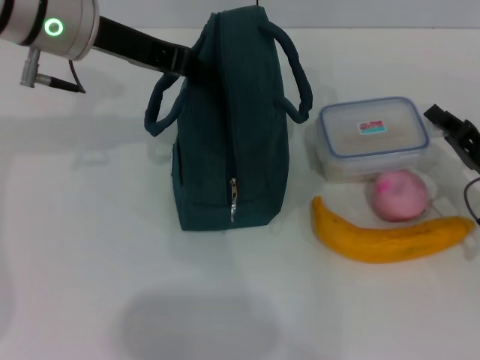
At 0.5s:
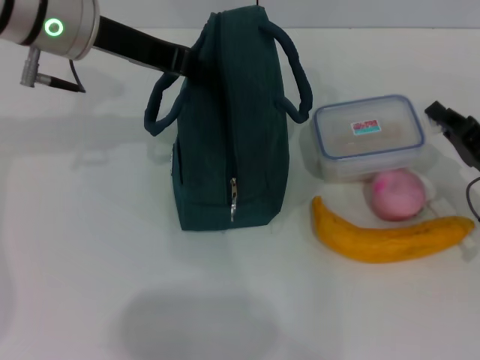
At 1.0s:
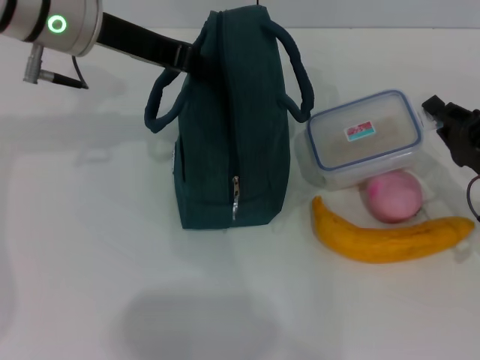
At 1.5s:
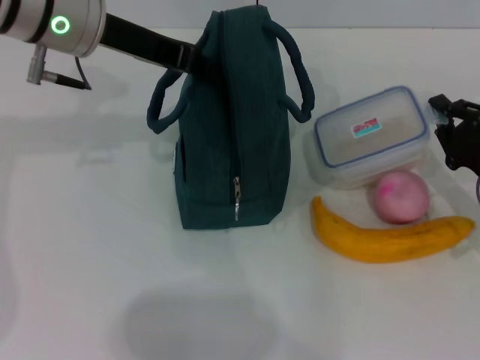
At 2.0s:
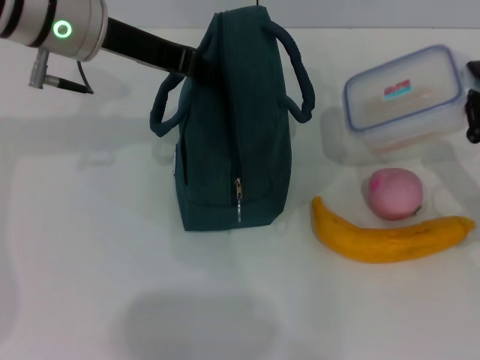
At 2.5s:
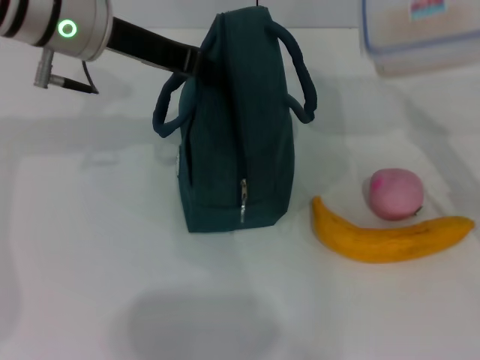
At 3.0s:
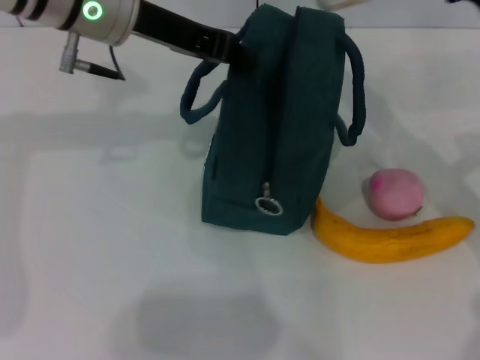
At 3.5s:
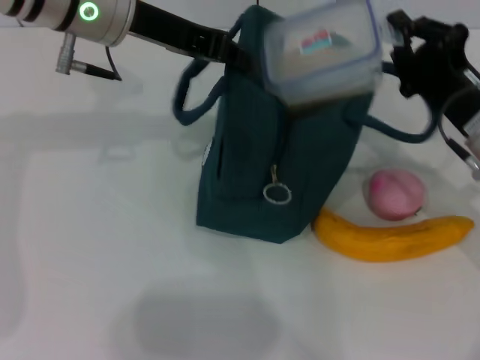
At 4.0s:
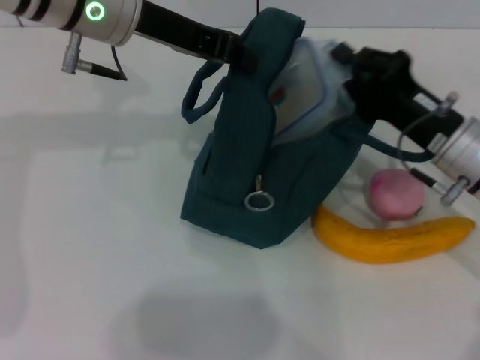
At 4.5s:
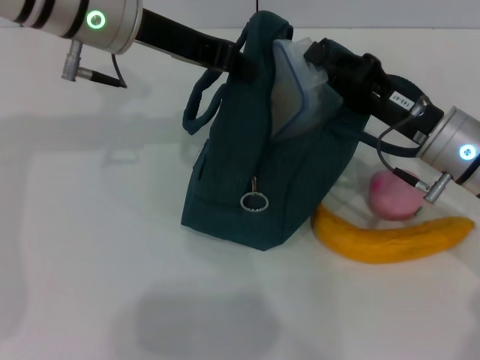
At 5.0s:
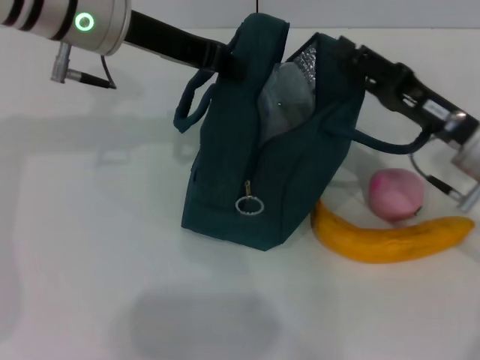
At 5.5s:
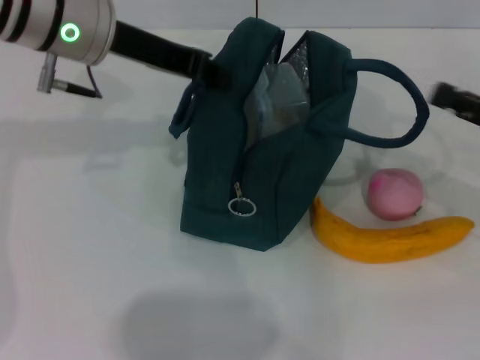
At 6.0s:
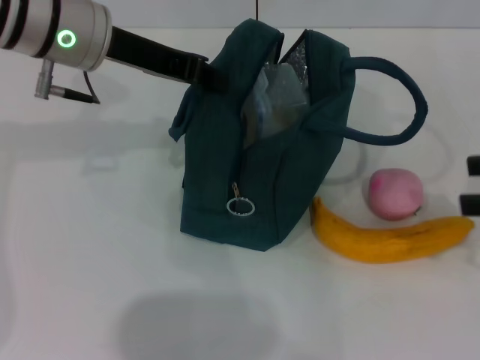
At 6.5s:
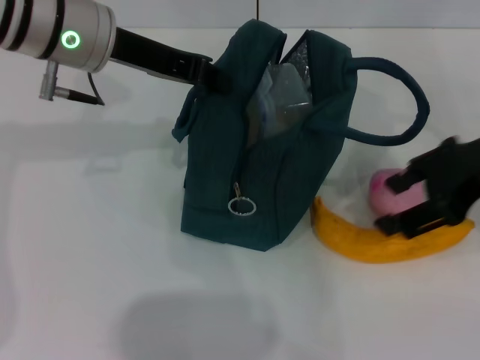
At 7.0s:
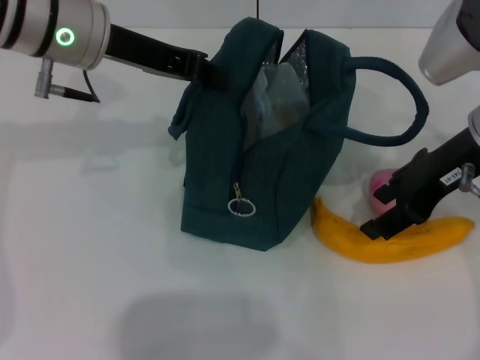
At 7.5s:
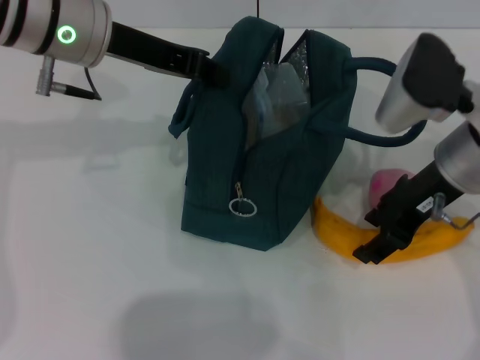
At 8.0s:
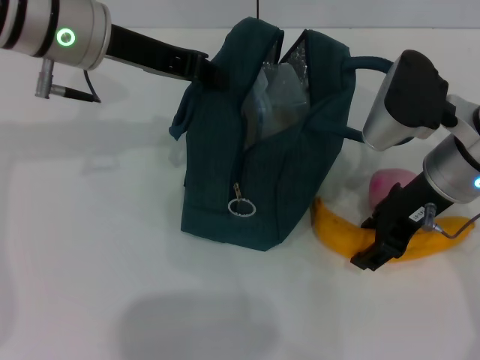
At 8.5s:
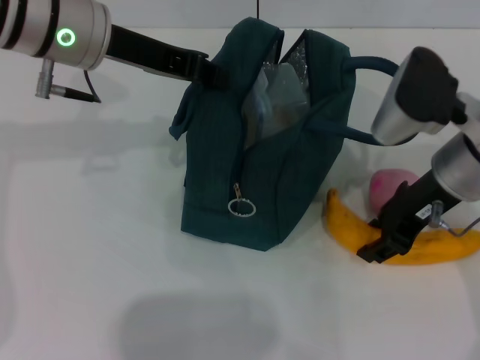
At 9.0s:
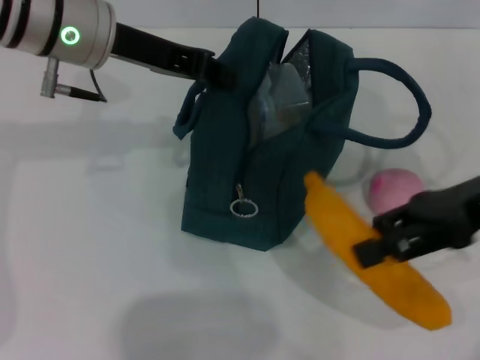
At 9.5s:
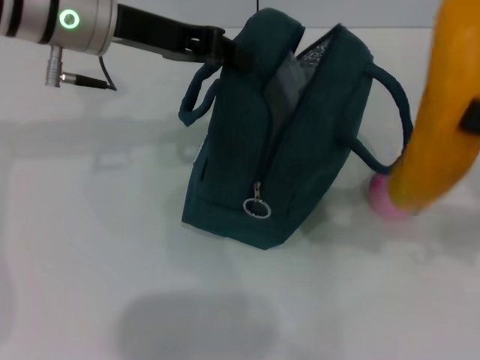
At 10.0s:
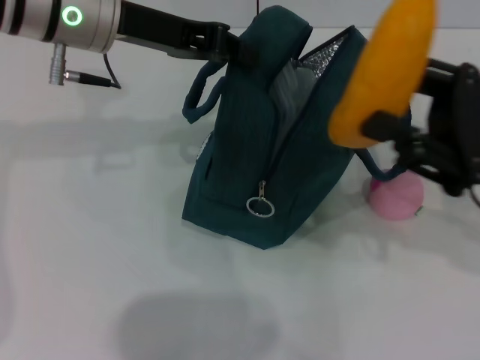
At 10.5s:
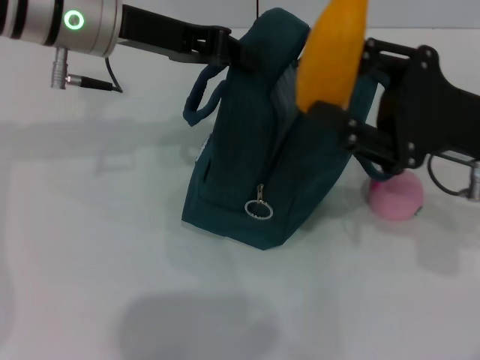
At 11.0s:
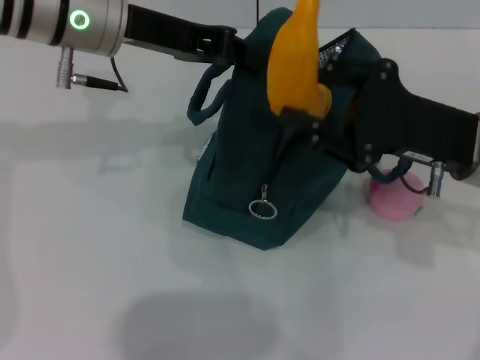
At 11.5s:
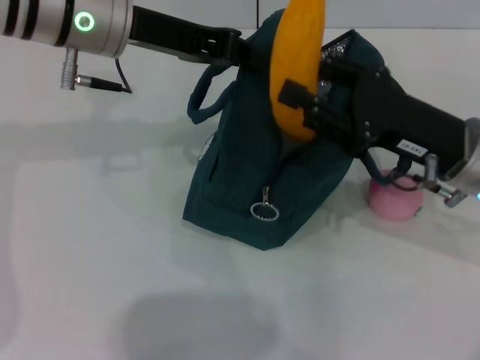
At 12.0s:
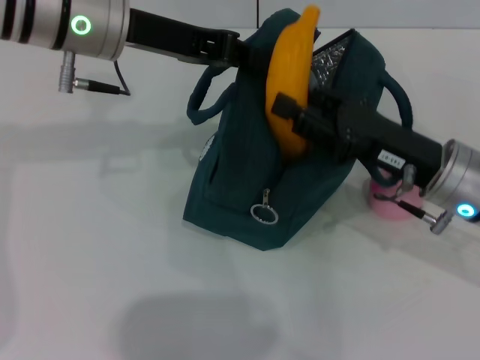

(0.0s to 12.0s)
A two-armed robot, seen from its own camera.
Step, 2.0s - 4.5s: Place the lunch box into the lunch bag with your right hand.
Step, 5.0s - 8.0s: Take the banana with your right hand.
2.0s - 4.0s: The right gripper heads to the left, covering approximately 10 cm, and reaches about 10 cm upward, then returns.
4.0s - 6.0s: The right gripper goes roughly 20 cm to the right, upward and backward, and opens its fingers.
6.0s - 8.0s: The right gripper moves to the left and forward, approximately 20 cm.
8.0s - 10.0s: The right gripper heads to the right and backward, covering some 10 cm.
10.0s - 12.0s: The right gripper heads downward and to the left, covering some 10 cm.

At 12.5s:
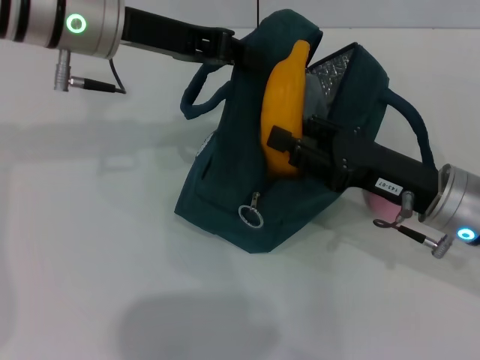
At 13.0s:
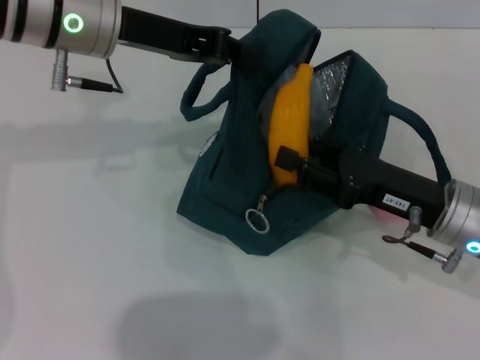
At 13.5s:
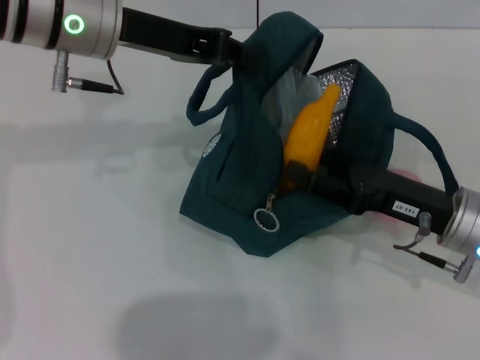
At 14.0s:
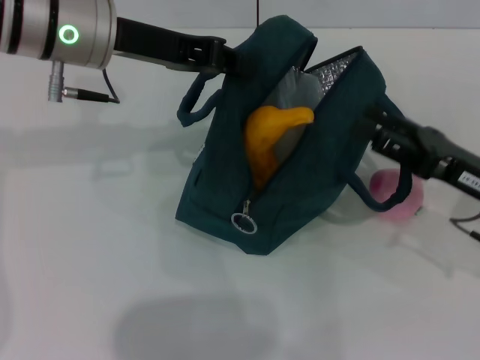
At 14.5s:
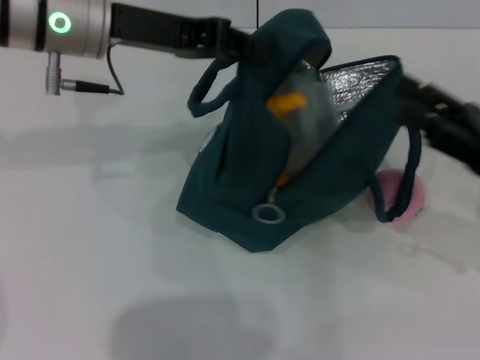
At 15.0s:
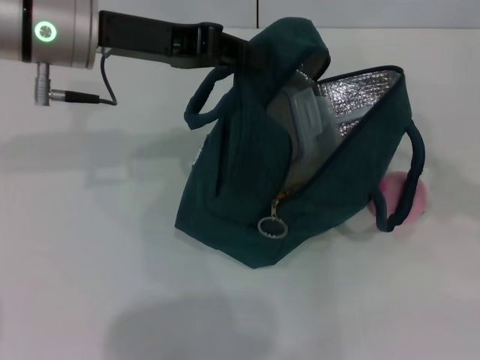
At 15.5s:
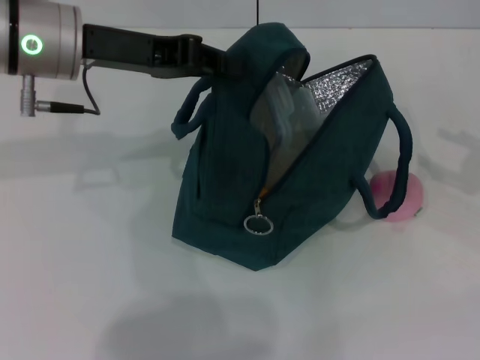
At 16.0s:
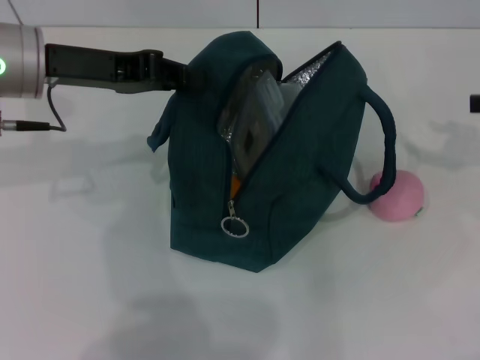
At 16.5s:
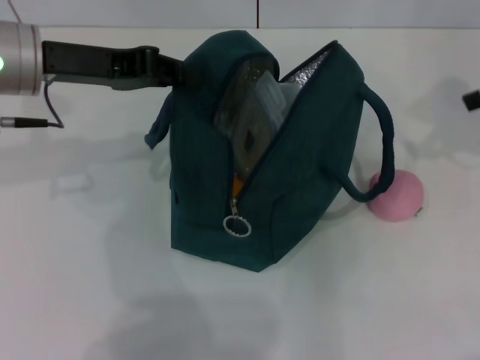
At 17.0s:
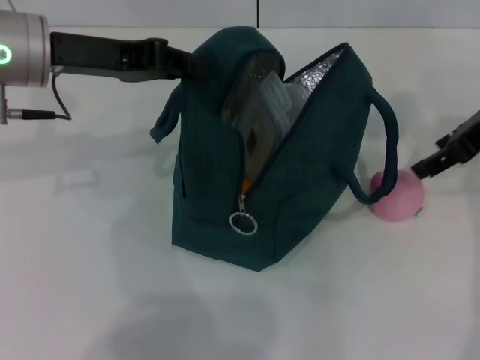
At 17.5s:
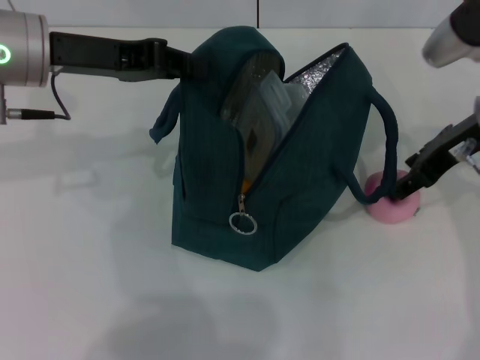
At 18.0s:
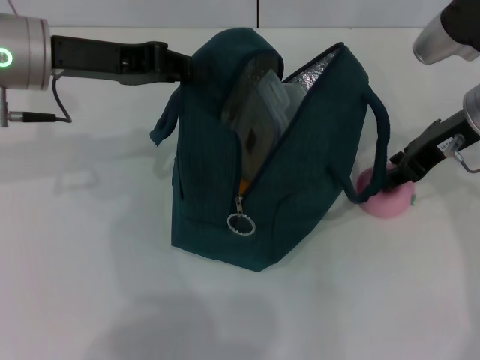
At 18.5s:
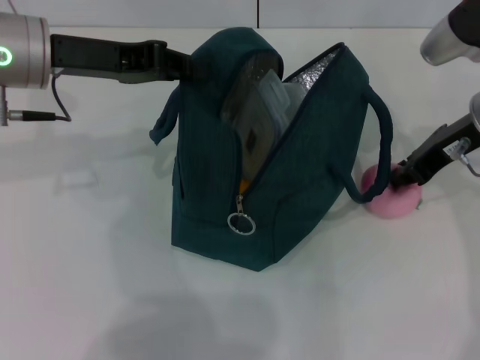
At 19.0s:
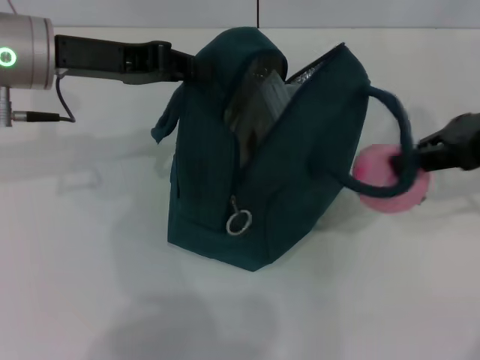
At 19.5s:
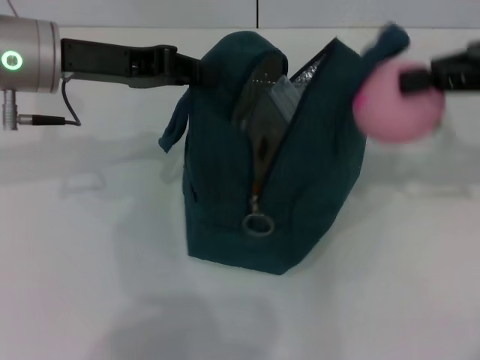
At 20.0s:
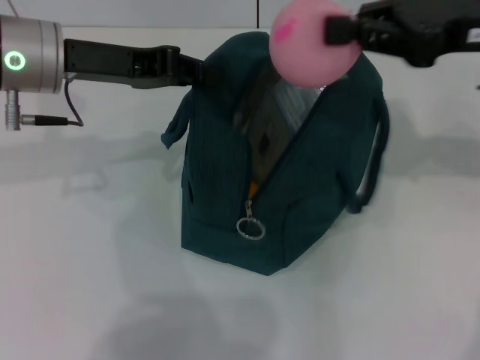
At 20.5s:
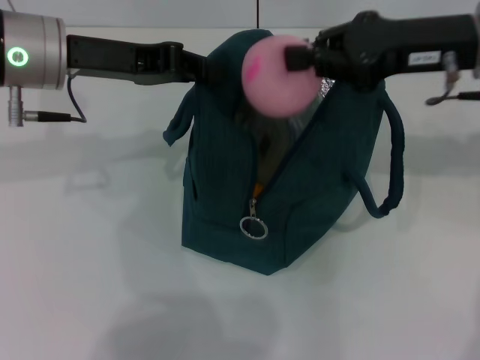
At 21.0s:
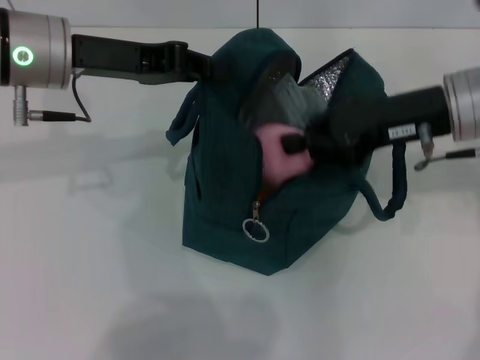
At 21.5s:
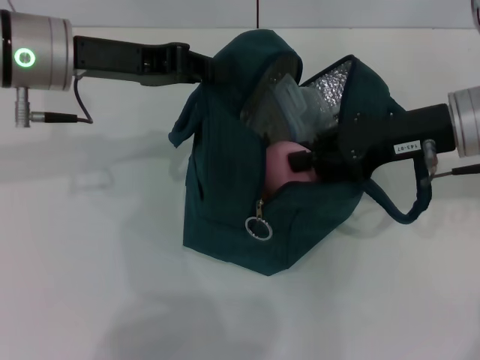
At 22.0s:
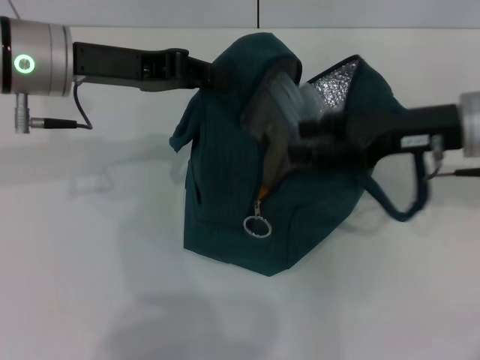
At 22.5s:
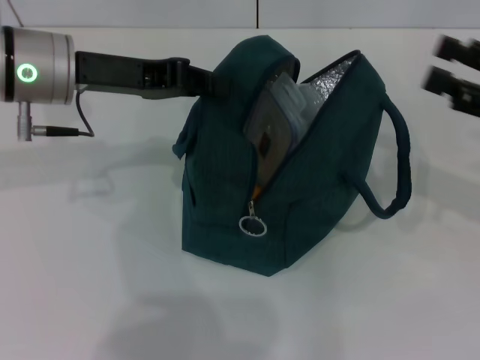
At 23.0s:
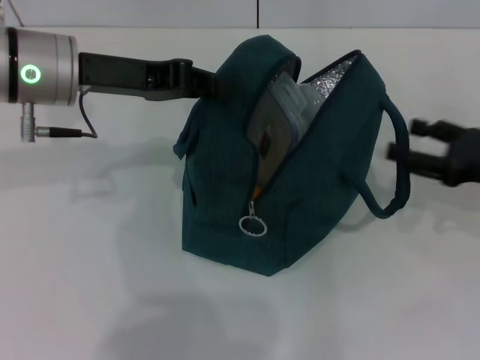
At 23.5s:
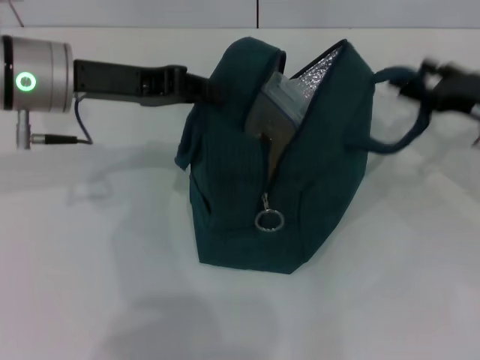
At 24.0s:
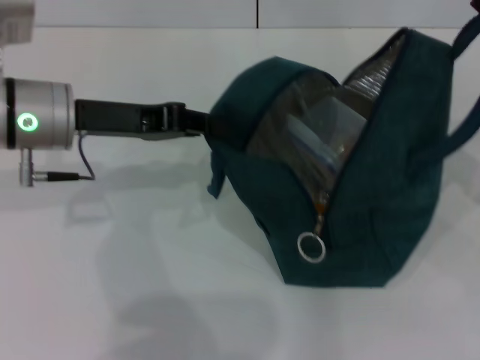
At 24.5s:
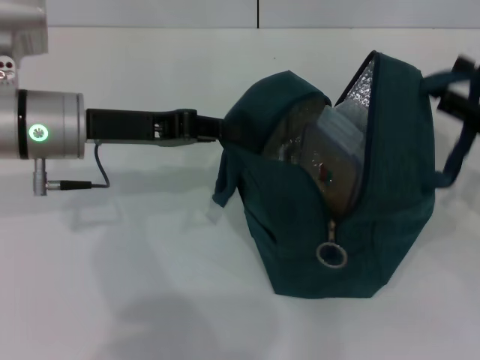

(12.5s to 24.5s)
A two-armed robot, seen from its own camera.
Step, 14.0s - 18.5s: Grab the peach with your right hand.
12.5s - 14.5s: The right gripper shifts about 10 cm to the right, and opens its fingers.
14.5s - 16.5s: The right gripper goes roughly 20 cm upward and forward. Meanwhile the left gripper goes approximately 5 cm to the left.
16.5s - 18.5s: The right gripper goes roughly 15 cm to the left and downward, and closes.
18.5s - 20.5s: The right gripper shifts about 5 cm upward, and reaches some 5 cm to the right, then returns.
20.5s - 22.5s: The right gripper travels to the right, backward and downward by roughly 15 cm, and opens.
22.5s - 24.5s: The left gripper changes place by some 5 cm. The right gripper goes about 5 cm downward.

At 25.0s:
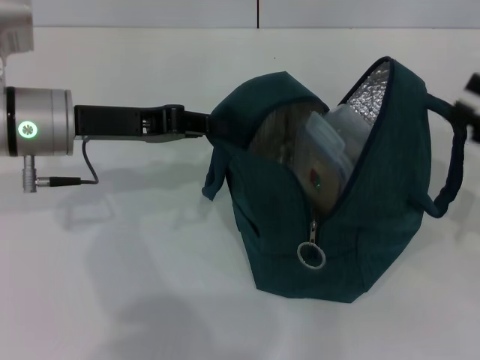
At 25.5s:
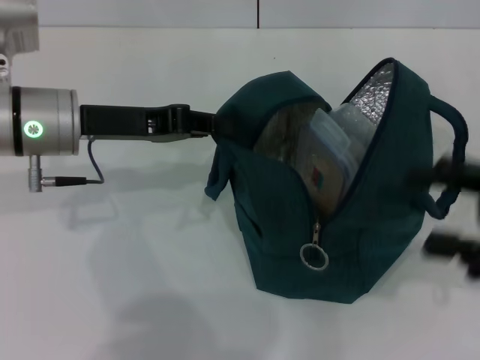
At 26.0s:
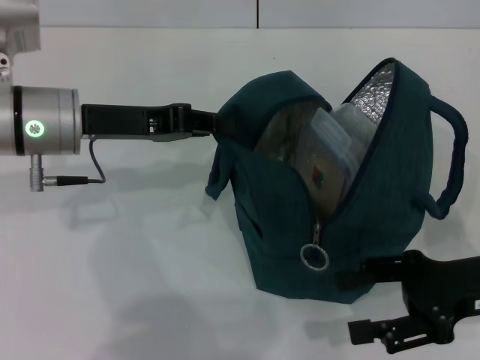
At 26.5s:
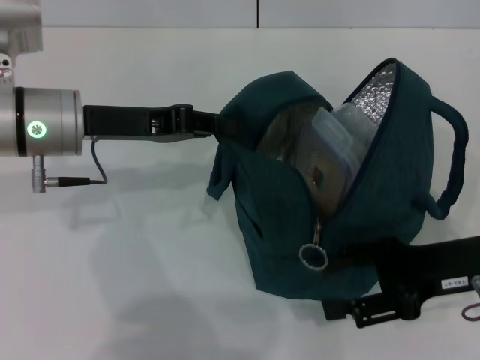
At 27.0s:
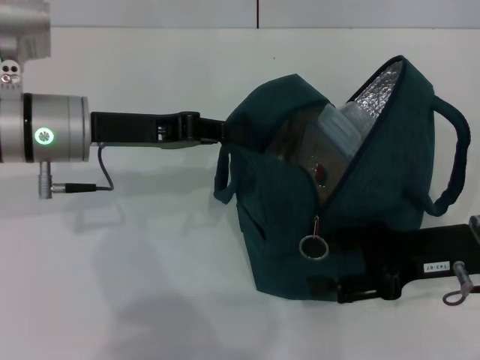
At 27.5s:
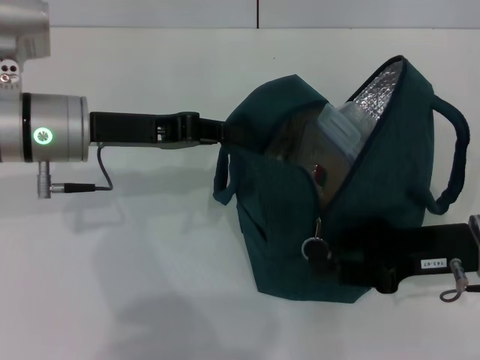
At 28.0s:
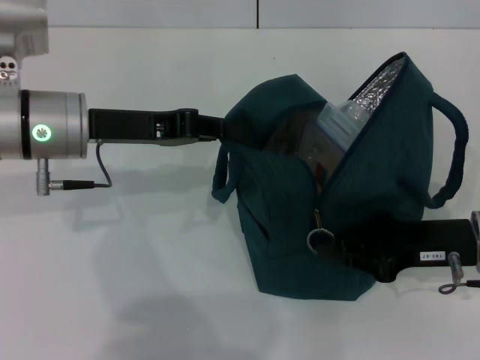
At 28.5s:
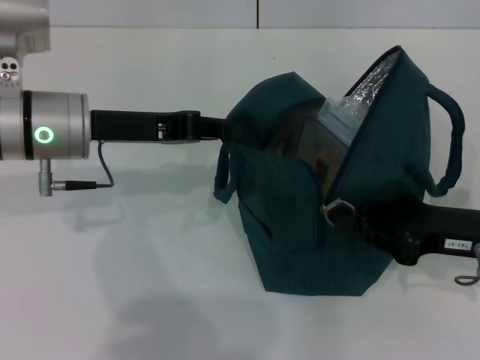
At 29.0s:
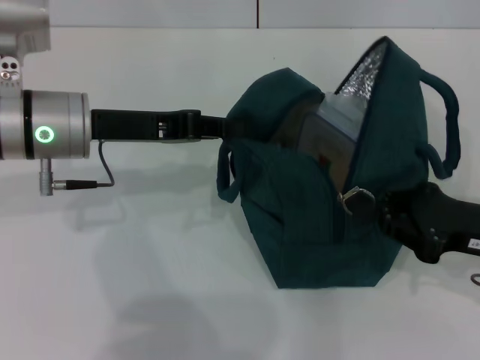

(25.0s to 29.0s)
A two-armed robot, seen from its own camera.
25.0s - 27.0s: The right gripper moves to the left, roughly 10 cm.
27.0s - 29.0s: The right gripper closes up.
